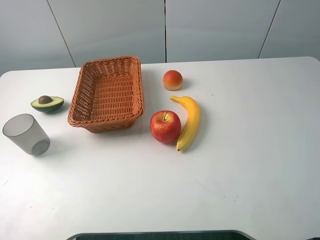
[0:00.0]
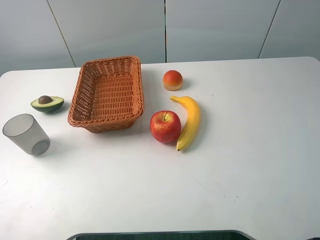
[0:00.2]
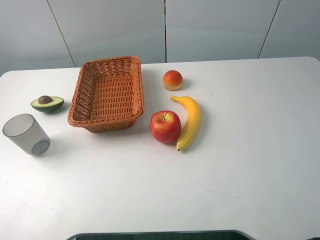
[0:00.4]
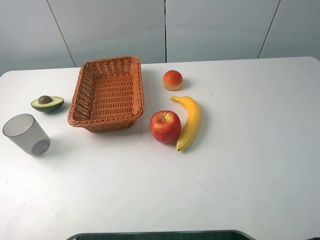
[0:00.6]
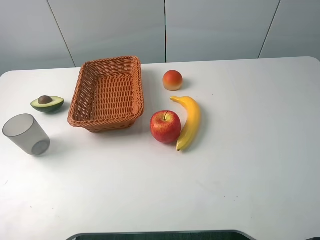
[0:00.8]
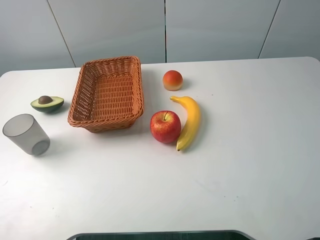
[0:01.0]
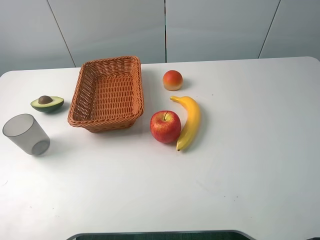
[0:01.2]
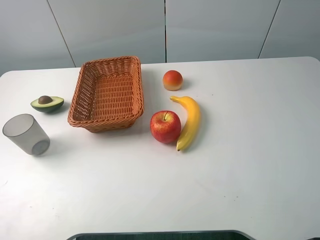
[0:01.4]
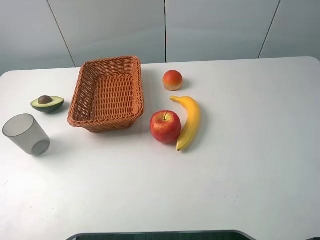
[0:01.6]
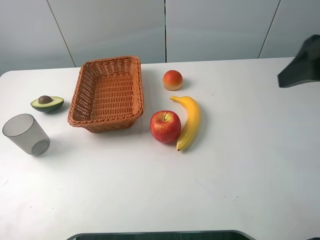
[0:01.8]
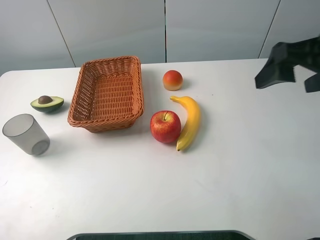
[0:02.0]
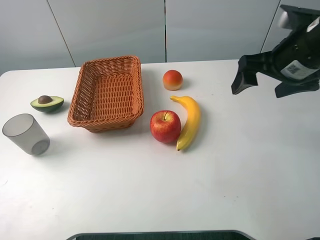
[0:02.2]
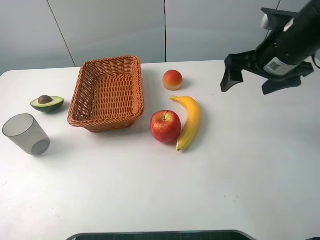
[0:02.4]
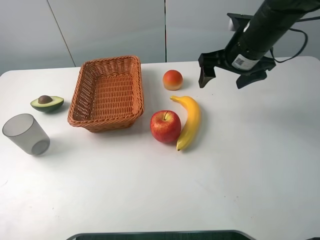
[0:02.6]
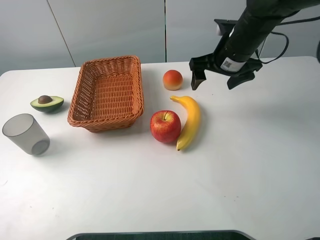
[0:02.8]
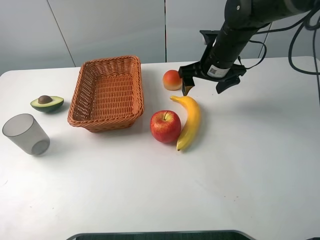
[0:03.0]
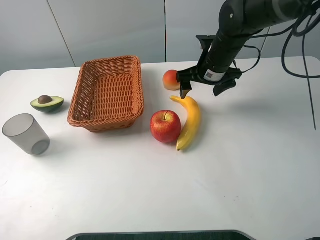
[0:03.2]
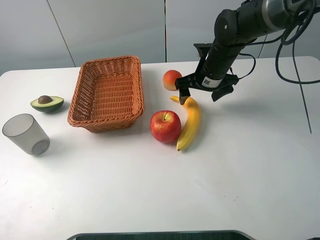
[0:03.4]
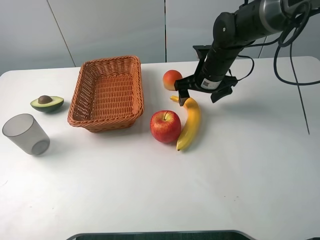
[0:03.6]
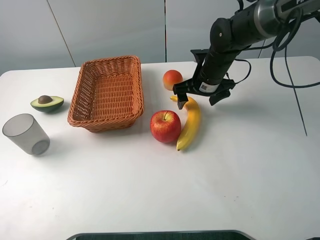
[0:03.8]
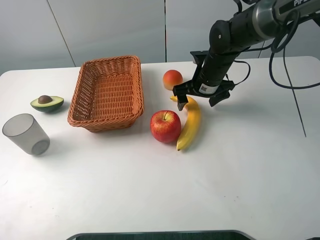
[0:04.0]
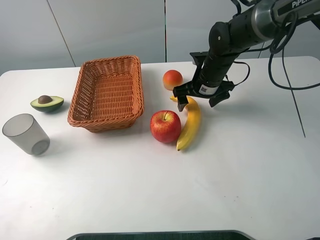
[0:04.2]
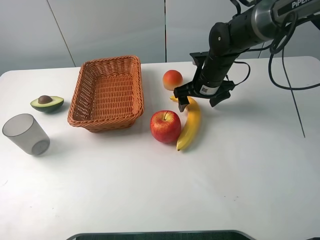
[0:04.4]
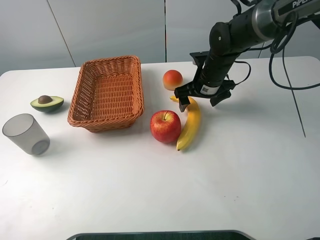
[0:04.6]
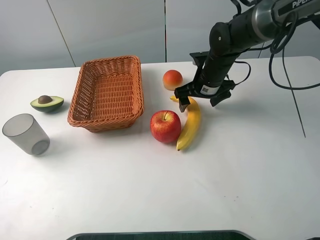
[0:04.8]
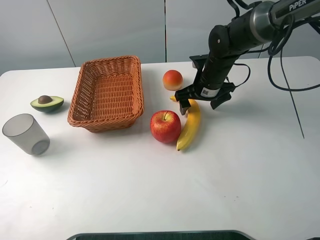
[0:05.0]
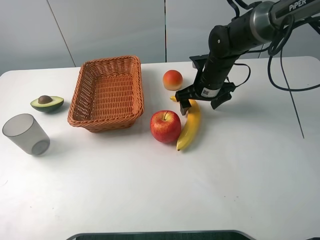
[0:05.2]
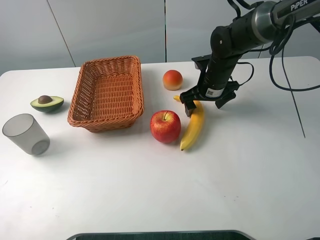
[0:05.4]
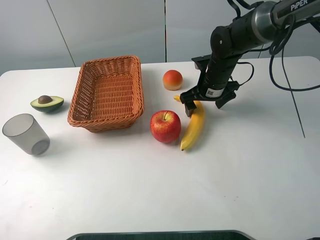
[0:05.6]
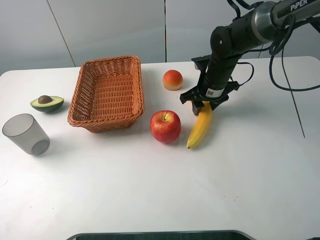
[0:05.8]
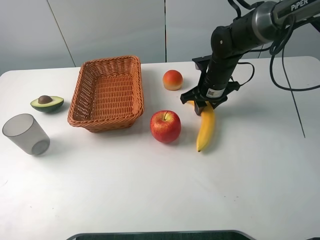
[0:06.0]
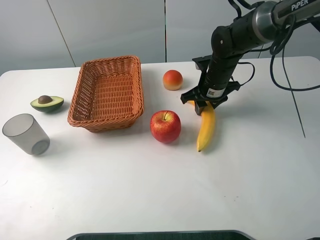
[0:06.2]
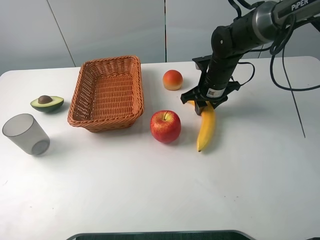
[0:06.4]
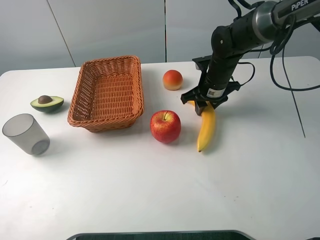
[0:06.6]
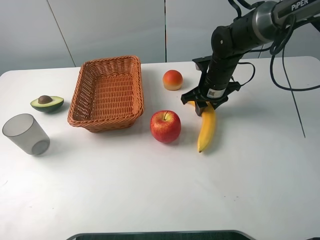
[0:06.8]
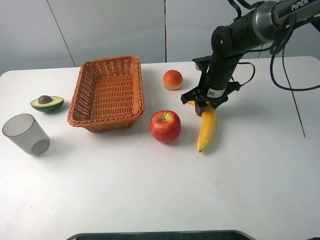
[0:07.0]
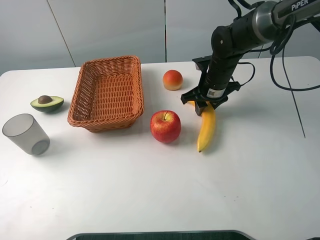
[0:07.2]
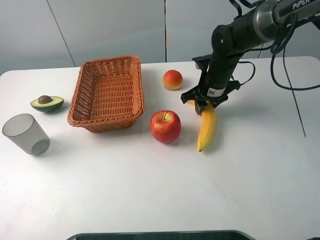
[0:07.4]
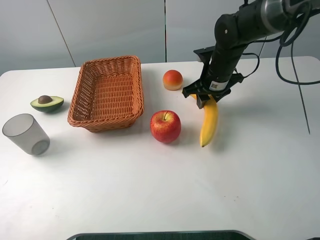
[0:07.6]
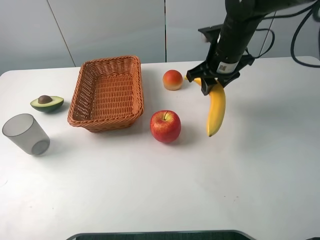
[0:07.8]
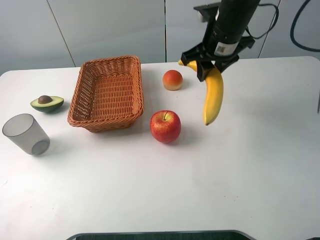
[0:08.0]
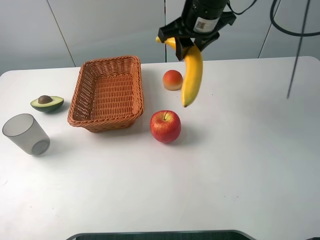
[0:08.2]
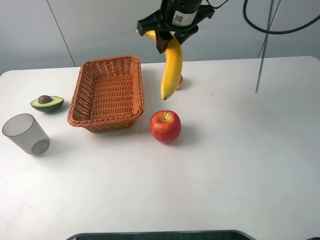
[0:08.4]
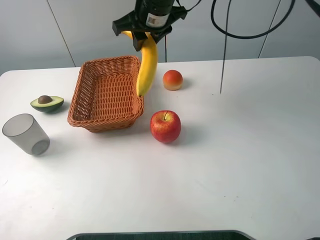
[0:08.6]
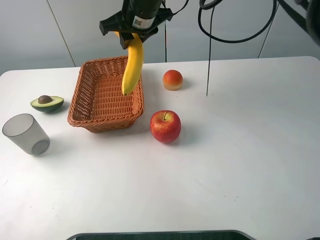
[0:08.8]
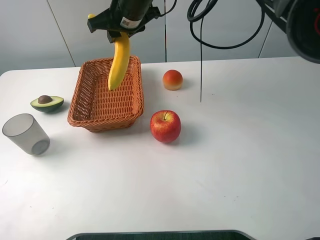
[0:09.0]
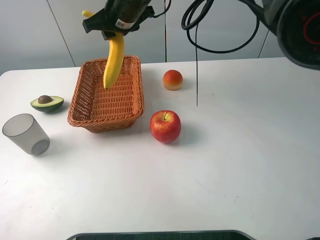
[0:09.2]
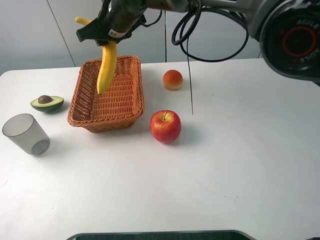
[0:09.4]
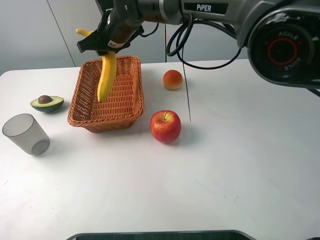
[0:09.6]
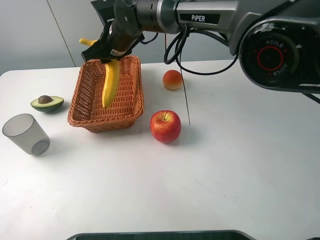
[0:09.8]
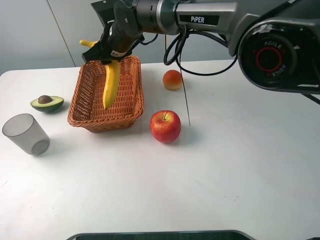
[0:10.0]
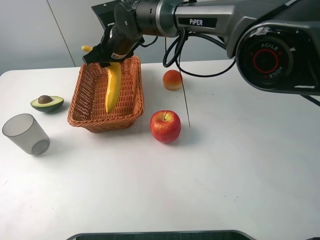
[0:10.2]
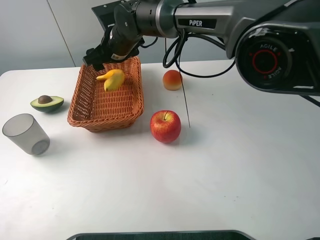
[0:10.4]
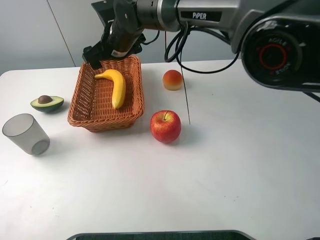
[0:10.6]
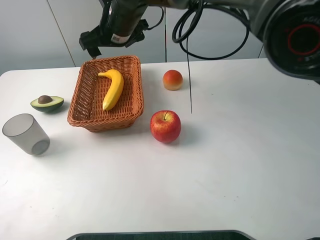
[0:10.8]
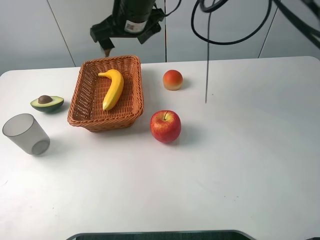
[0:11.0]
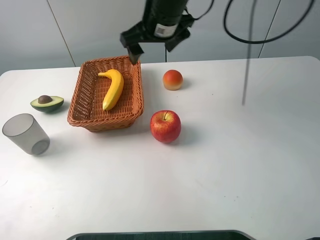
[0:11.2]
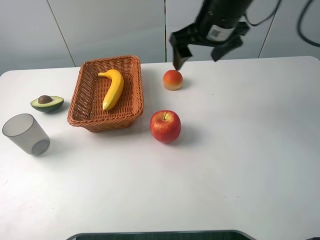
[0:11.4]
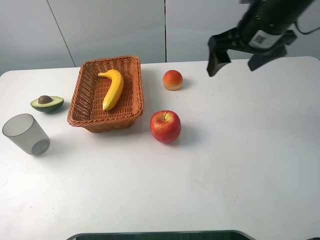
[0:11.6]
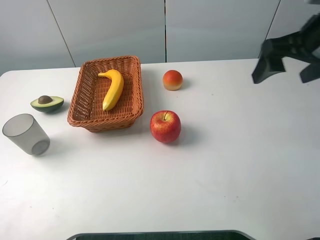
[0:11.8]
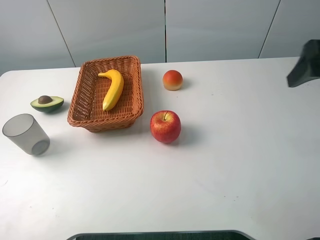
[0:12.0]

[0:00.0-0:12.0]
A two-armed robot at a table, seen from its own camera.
0:01.6 to 0:03.0: The right gripper travels forward, downward and to the left by about 35 cm.
0:03.0 to 0:04.4: The right gripper heads downward, covering approximately 5 cm.
0:04.4 to 0:06.0: The right gripper closes.
0:06.0 to 0:07.6: The grippers stay close to where they were, moving slightly.
0:07.6 to 0:09.0: The right gripper shifts about 20 cm to the left and upward.
0:09.0 to 0:10.4: The right gripper heads downward, covering about 10 cm, and opens up.
0:10.4 to 0:12.0: The right gripper shifts approximately 40 cm to the right and backward.

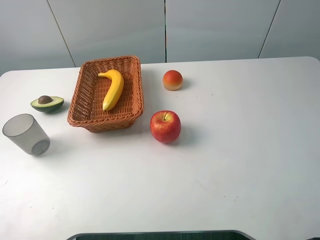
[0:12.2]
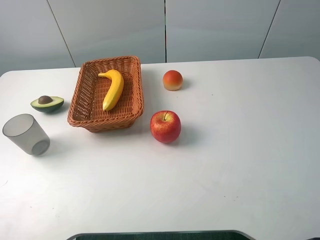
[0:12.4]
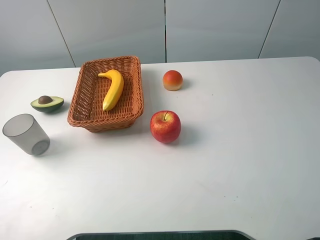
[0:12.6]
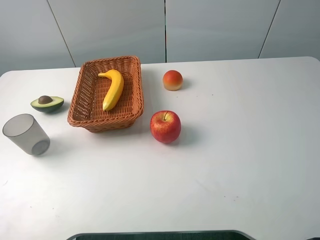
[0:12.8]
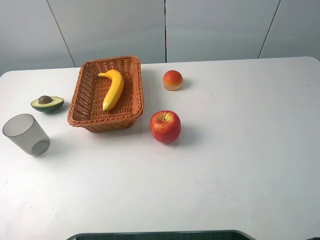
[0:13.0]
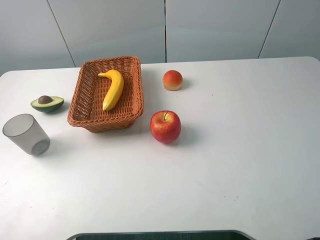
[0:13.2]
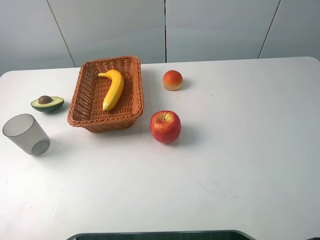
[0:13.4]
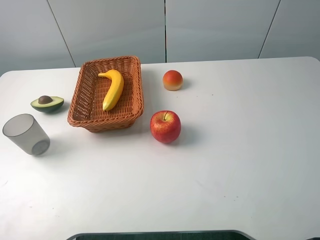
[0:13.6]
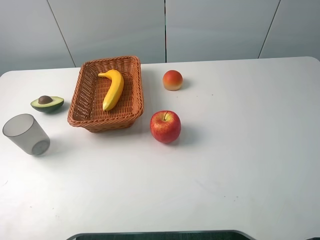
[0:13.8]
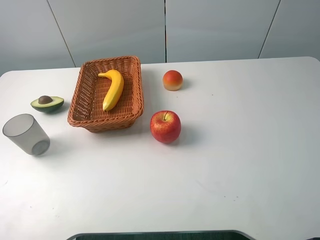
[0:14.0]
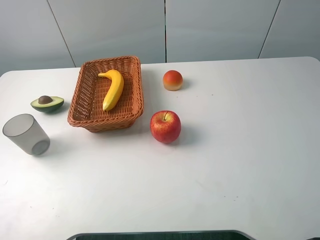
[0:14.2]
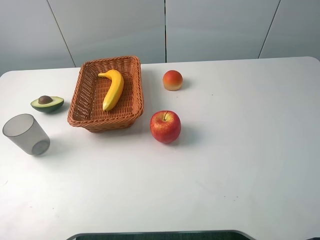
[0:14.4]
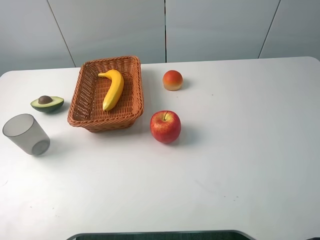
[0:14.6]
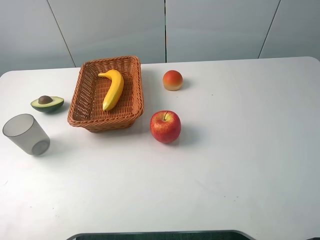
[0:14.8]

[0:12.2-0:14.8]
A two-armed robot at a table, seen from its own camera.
0:13.4 to 0:14.8: Both grippers stay put.
